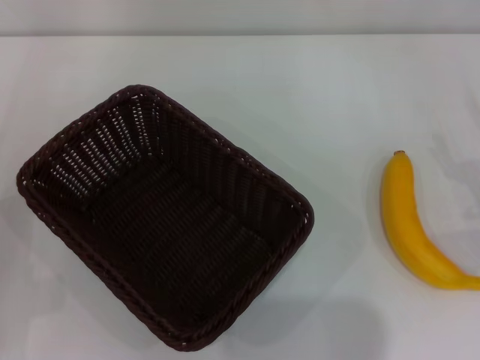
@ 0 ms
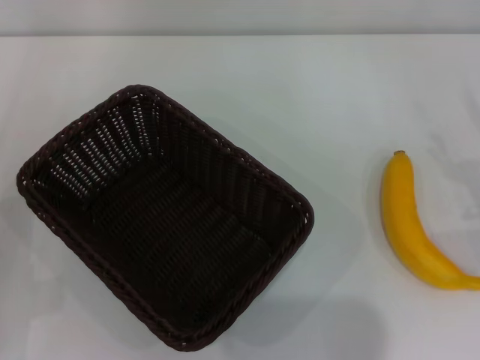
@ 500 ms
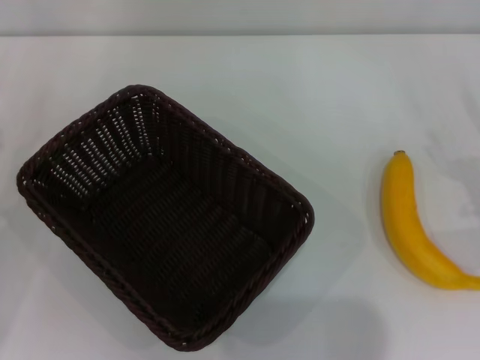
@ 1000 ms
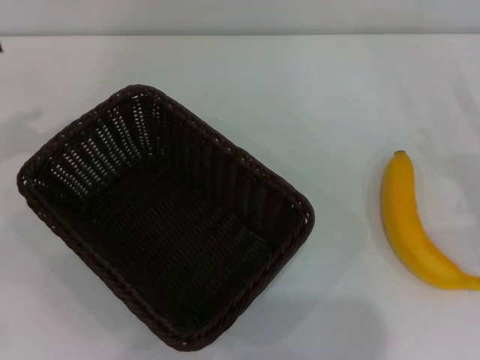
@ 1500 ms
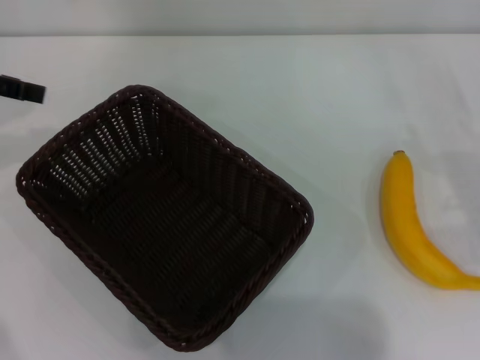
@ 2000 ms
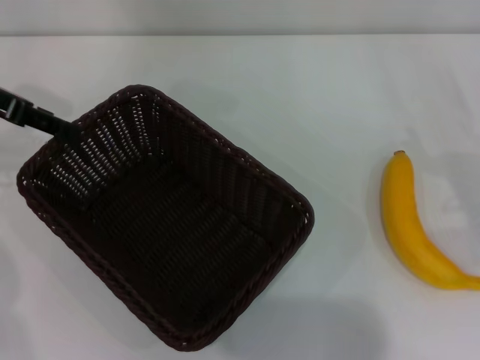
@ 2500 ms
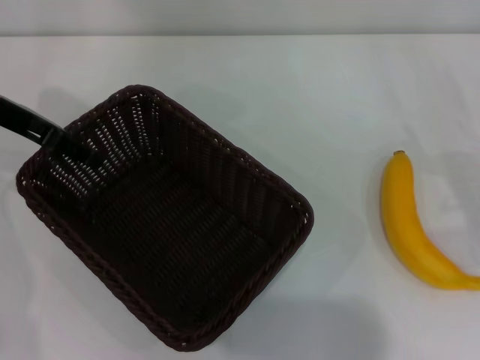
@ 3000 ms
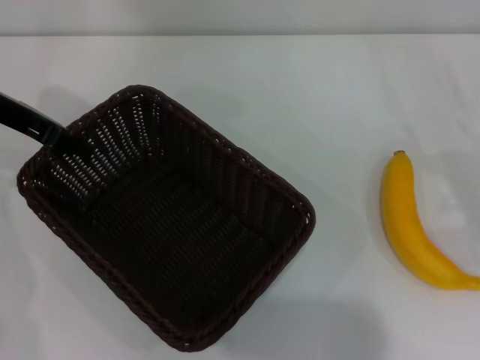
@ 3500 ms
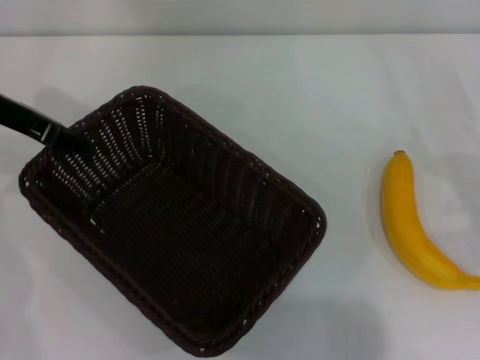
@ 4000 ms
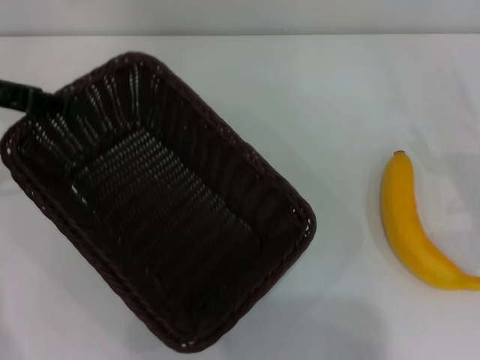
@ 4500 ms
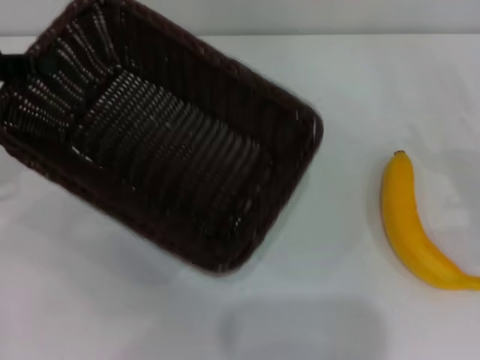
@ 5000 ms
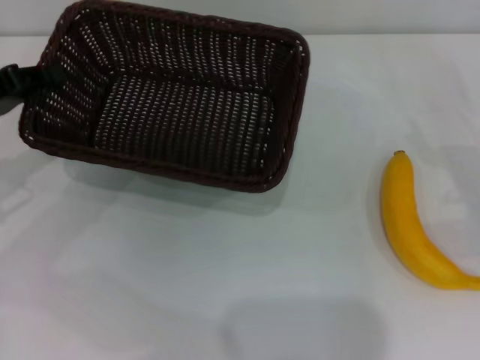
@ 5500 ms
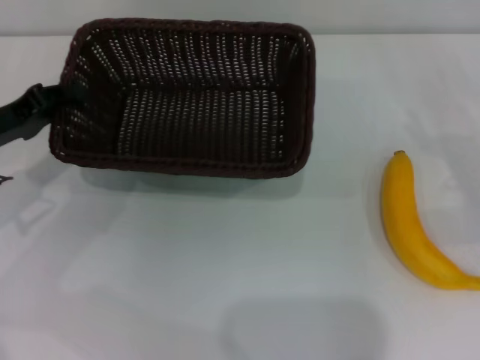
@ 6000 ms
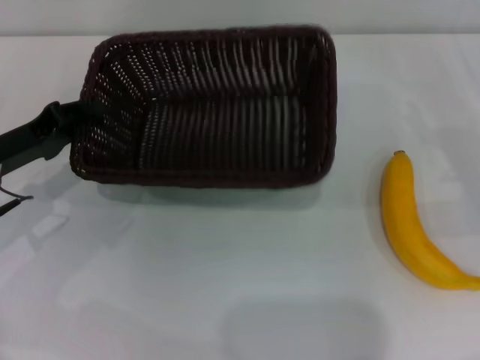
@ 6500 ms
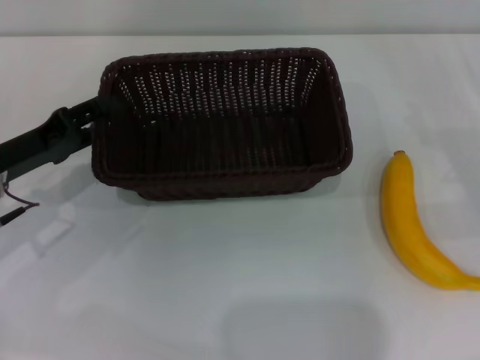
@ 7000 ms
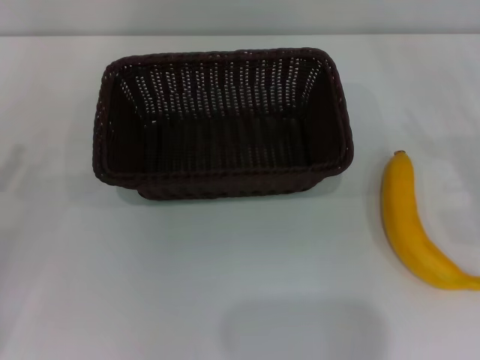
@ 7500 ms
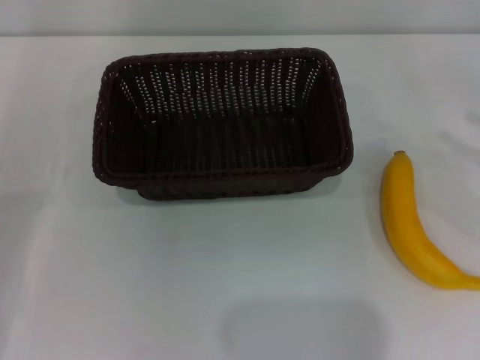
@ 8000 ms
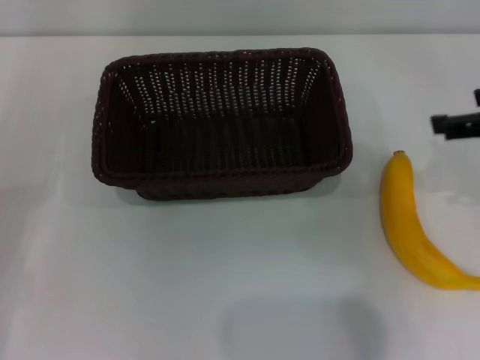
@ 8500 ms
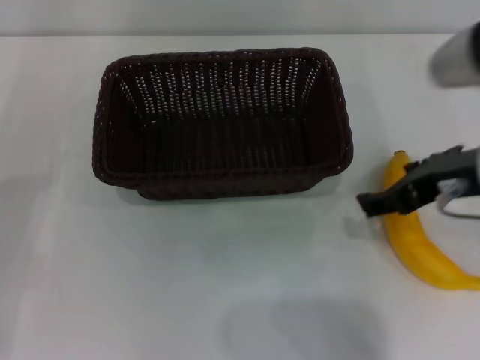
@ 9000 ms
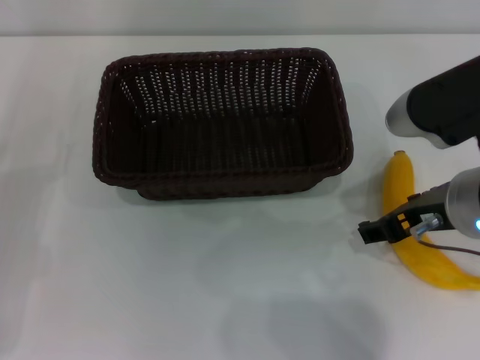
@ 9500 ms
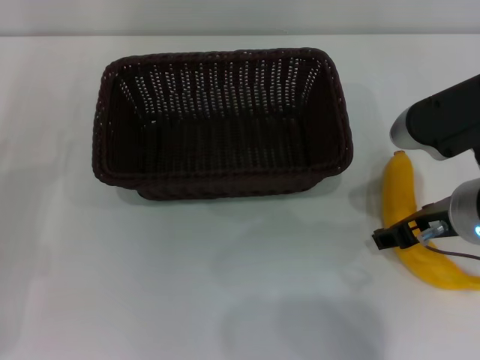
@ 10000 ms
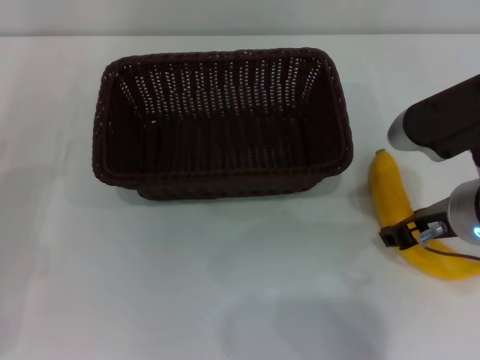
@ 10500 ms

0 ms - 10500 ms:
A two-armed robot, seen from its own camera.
Step, 0 ms - 4500 ms: Pick up the dark basket with the left gripper.
Step, 5000 ms - 7000 ms: Place the dark basket in the center of view with the left gripper.
0 ms - 2000 ms: The left gripper moves upward and forward, approximately 25 cm.
2000 ms - 4000 ms: The left gripper shifts roughly 5 cm to the right, and closes.
4000 ms - 6500 ms: The left gripper is displaced downward and backward by roughly 15 cm.
6500 ms - 8500 ms: The left gripper heads backward and to the left, covering about 10 cm, and opens. Meanwhile the right gripper moves upward and to the left, approximately 20 cm.
8500 ms - 10500 ms: The right gripper goes about 15 cm to the left and downward, and closes its fingers.

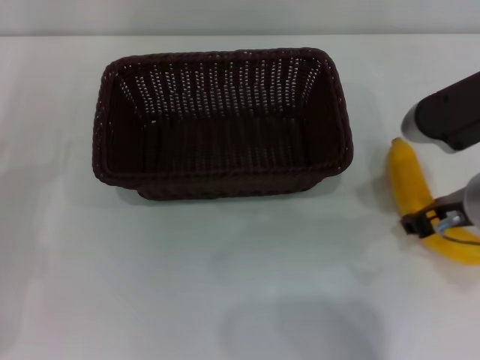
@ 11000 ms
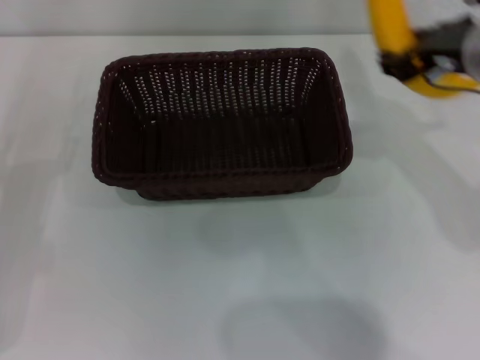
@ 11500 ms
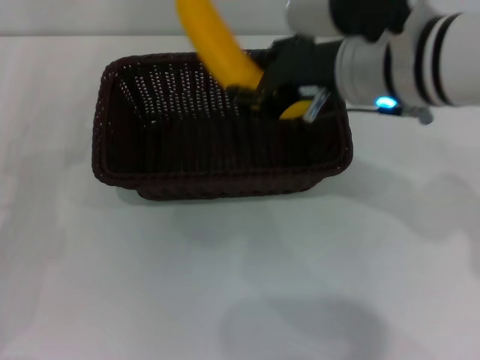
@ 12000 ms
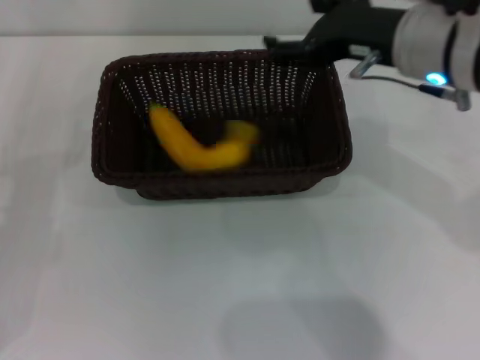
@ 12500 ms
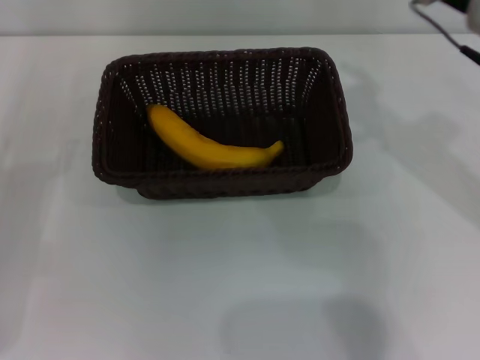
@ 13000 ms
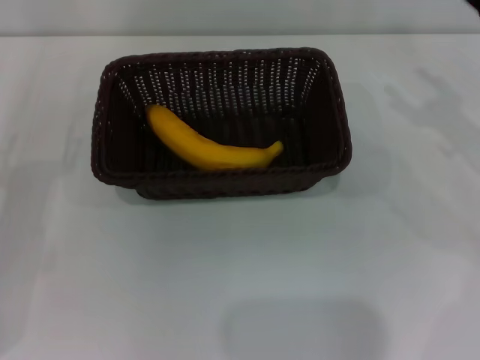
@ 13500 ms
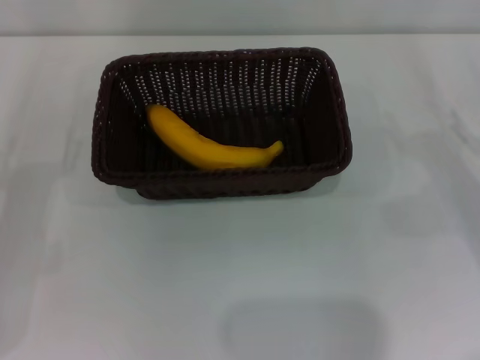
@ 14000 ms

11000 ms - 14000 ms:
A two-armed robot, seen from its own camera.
Step, 11500 ms - 12500 ms: Place the banana into the dark basket with the right gripper.
11000 ms - 12500 ms: The right gripper heads upward and forward, covering roughly 10 cm, and opens up.
12500 ms - 14000 ms: The right gripper heads to the right and downward, covering about 25 cm, and opens.
